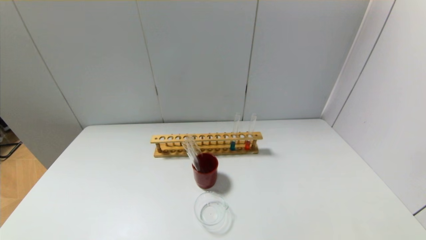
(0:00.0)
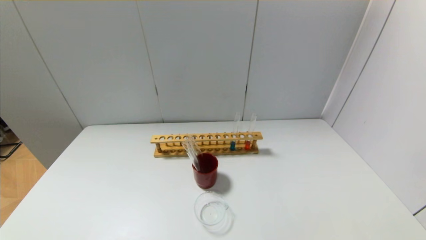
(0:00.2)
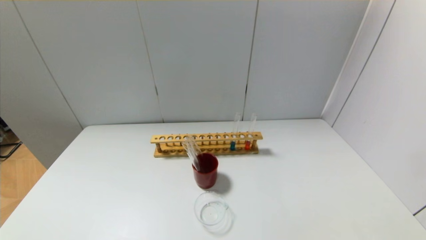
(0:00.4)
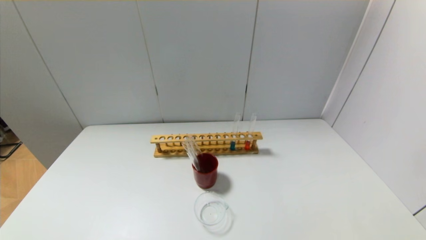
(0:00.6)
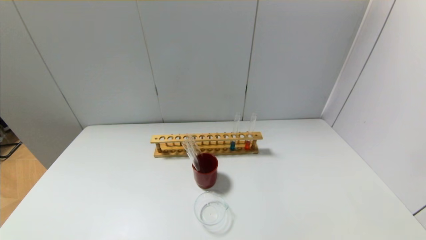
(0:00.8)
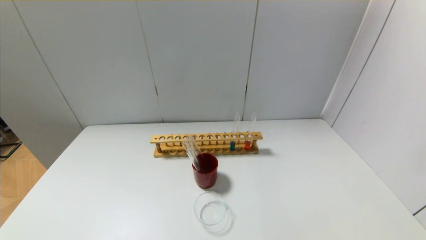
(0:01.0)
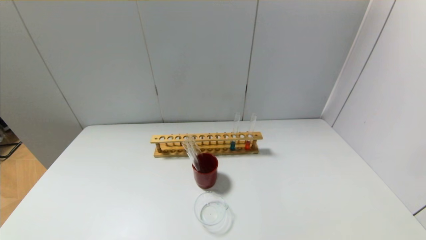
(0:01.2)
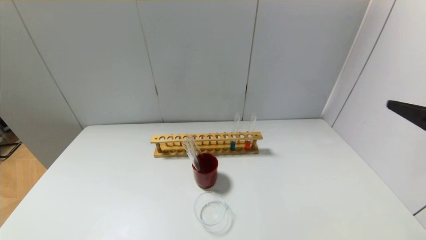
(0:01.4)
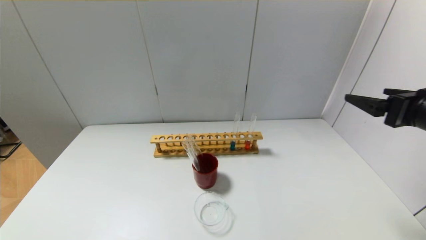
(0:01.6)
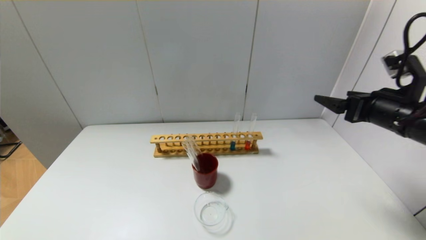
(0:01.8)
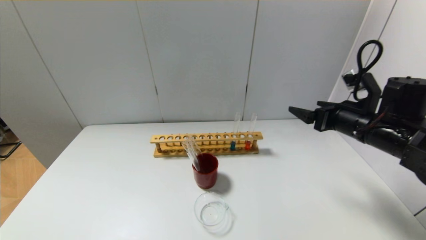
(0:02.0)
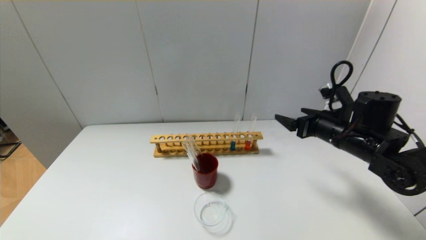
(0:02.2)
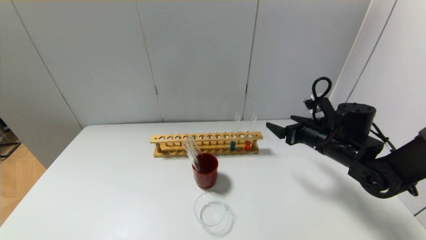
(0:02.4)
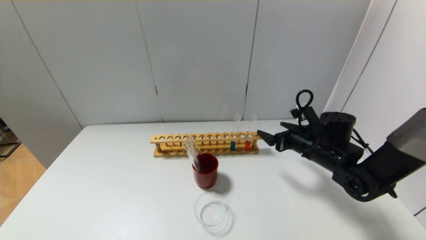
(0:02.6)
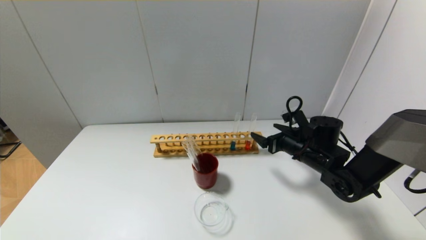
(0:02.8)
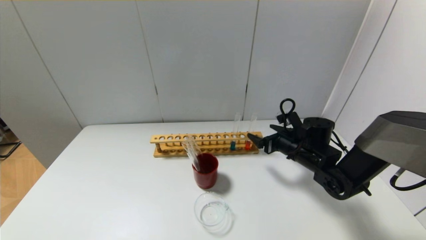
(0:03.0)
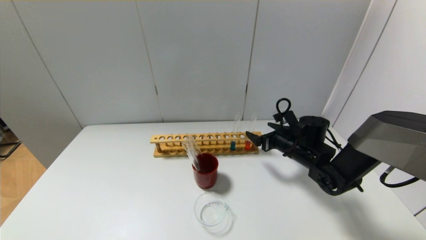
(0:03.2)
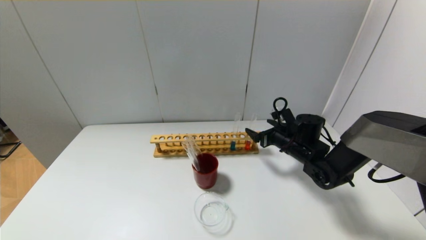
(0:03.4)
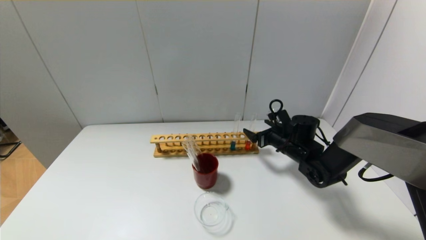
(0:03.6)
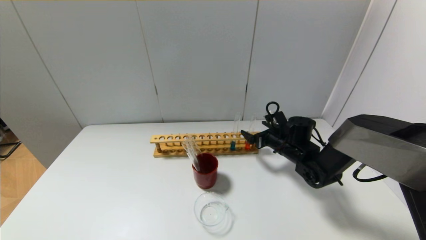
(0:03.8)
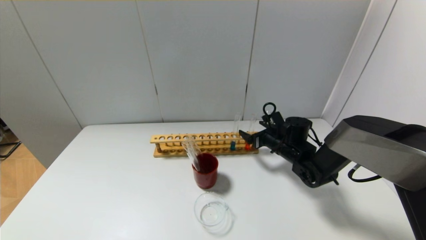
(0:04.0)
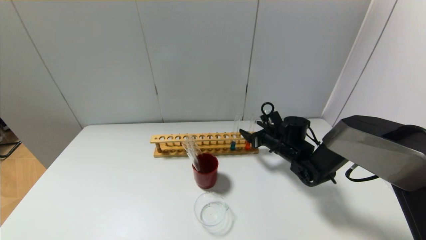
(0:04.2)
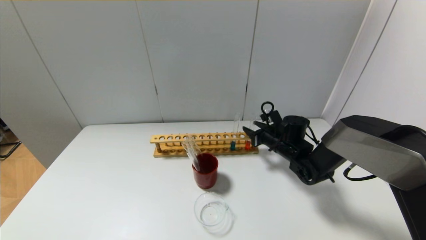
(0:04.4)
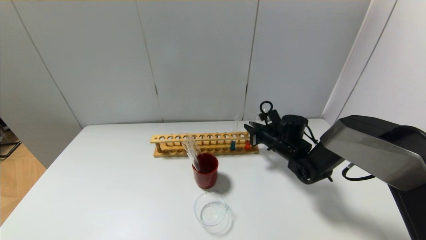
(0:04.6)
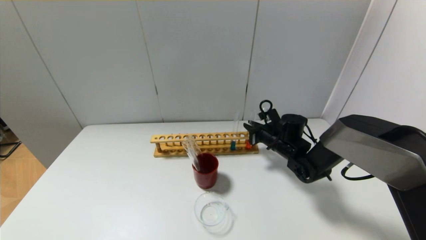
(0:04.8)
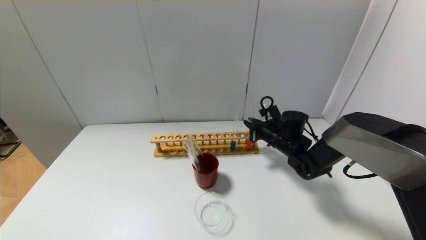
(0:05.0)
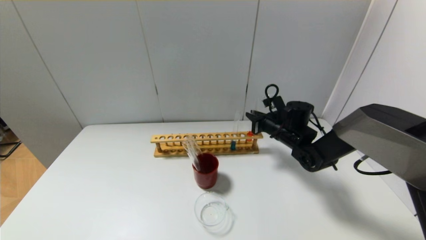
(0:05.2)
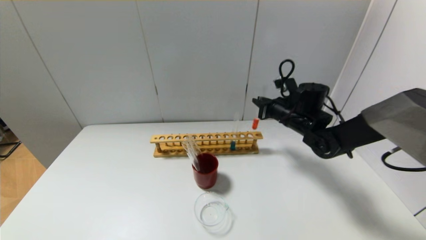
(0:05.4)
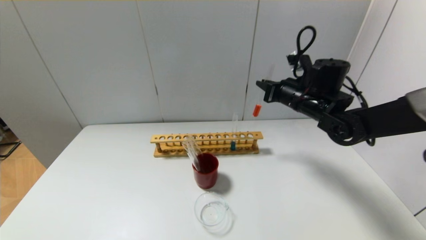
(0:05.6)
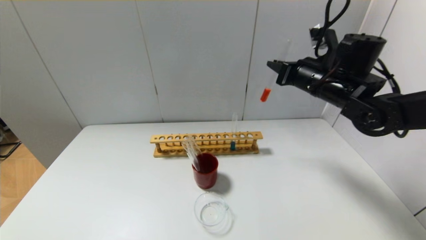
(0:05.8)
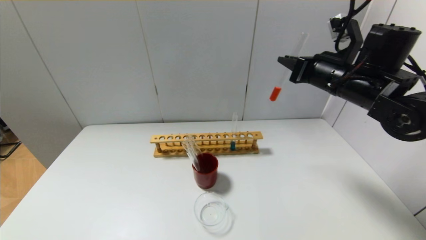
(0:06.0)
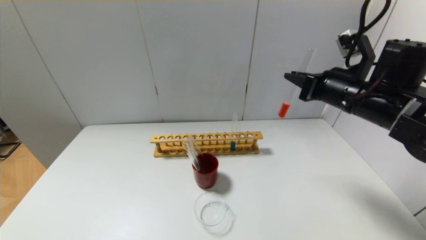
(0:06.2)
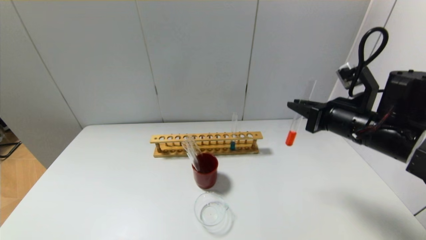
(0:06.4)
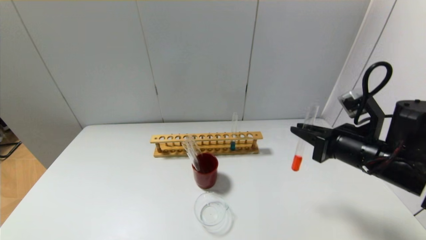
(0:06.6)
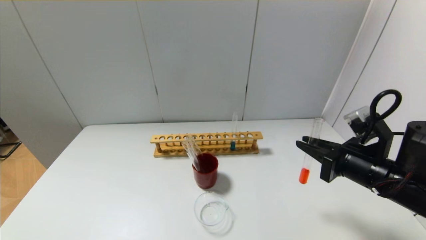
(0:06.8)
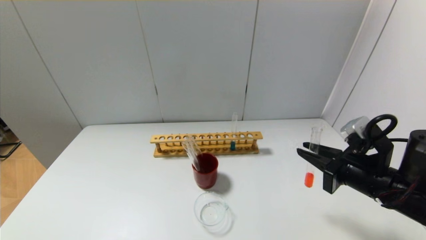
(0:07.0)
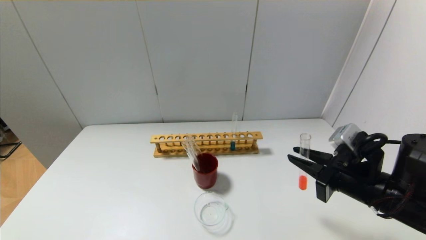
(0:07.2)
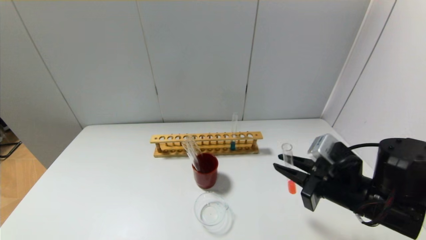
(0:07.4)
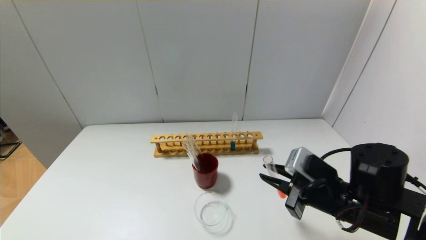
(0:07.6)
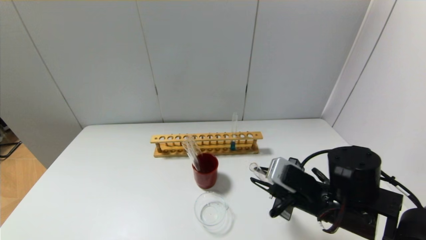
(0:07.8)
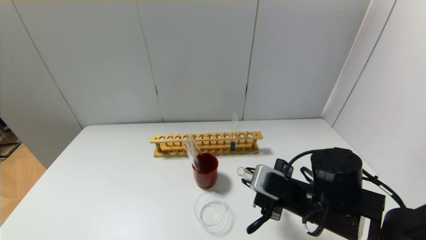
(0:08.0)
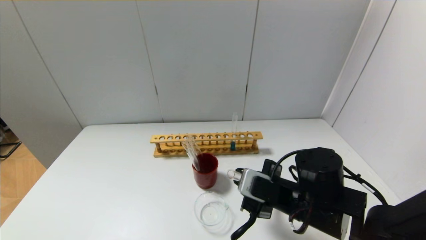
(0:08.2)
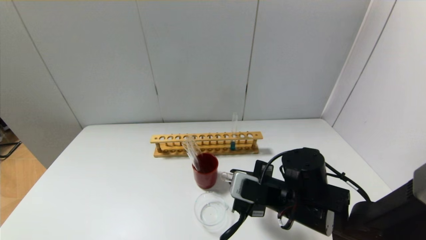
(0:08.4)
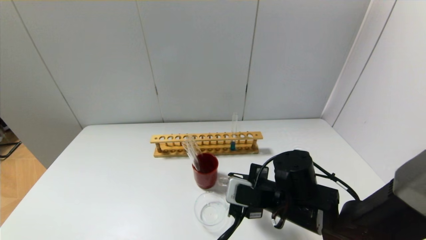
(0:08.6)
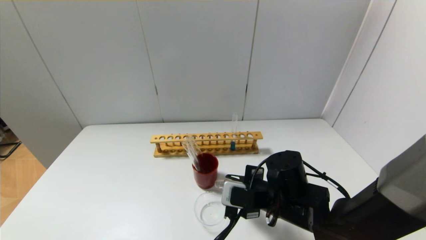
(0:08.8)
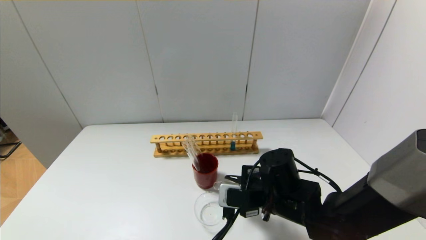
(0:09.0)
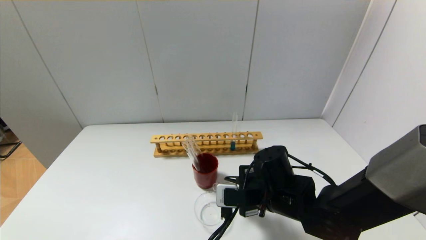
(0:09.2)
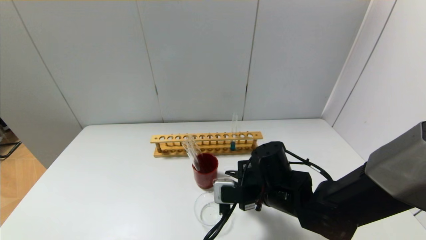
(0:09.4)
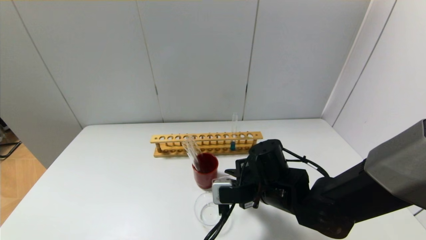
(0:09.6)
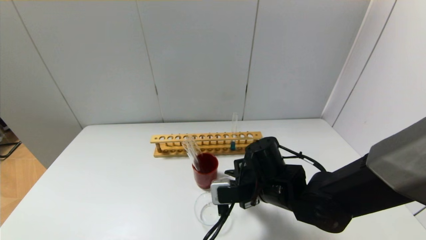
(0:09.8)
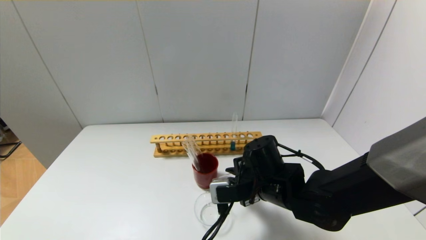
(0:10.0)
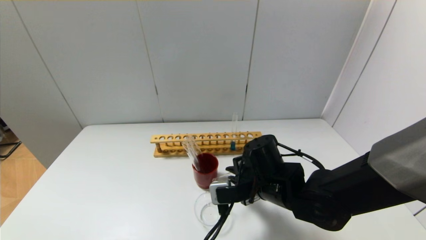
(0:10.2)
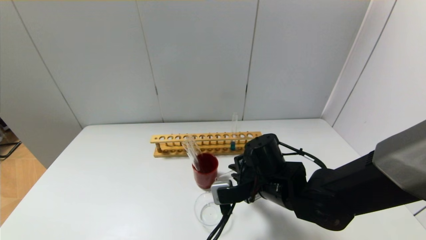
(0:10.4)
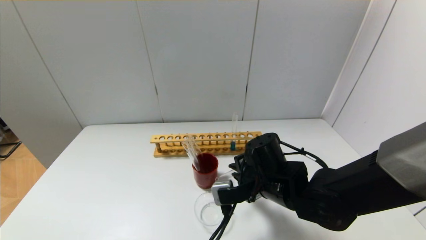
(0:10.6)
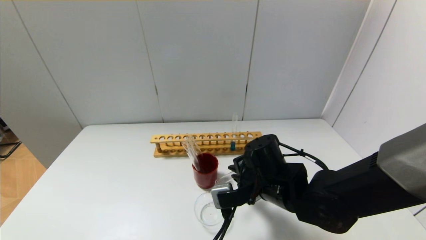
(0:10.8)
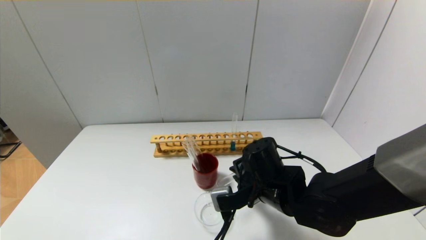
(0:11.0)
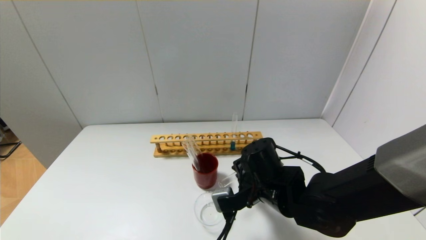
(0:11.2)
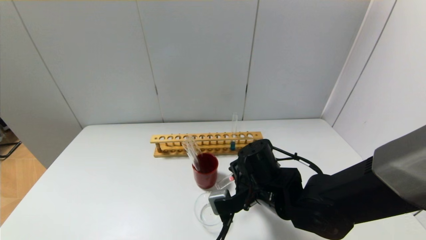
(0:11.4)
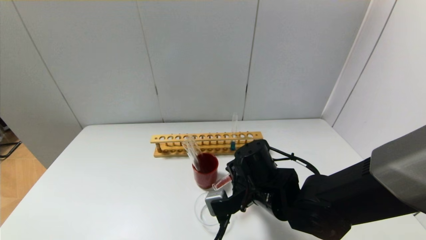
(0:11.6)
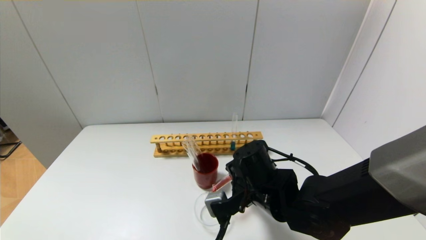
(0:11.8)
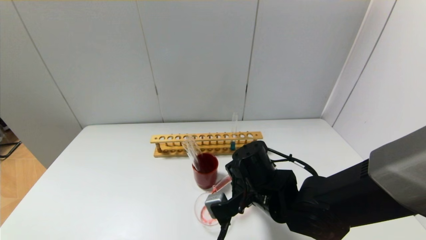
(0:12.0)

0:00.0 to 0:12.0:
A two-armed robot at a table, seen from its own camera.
Step, 0:00.0 to 0:04.6: Grasp the red reagent with the right gripper.
0:00.0 to 0:01.6: The right gripper shifts approximately 30 cm forward and upward.
0:01.6 to 0:03.0: The right gripper moves downward, forward and to the left, some 25 cm.
0:03.0 to 0:04.4: The right gripper travels forward by approximately 5 cm, and closes its fingers.
0:04.4 to 0:06.0: The right gripper goes roughly 25 cm upward and backward.
0:06.0 to 0:07.6: The right gripper heads downward and backward, covering some 20 cm.
0:07.6 to 0:09.0: The right gripper moves to the left and downward, about 10 cm.
0:10.4 to 0:12.0: The grippers make only small movements.

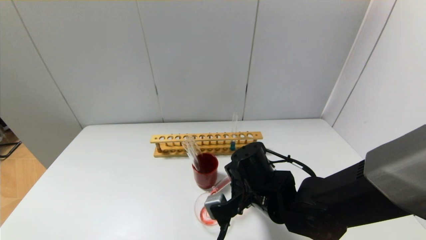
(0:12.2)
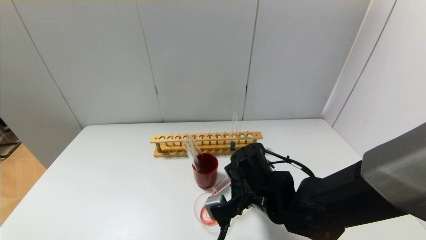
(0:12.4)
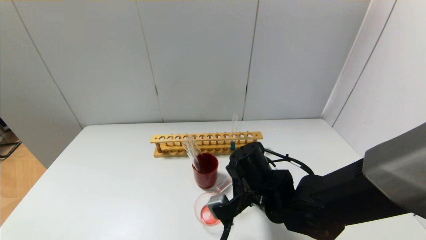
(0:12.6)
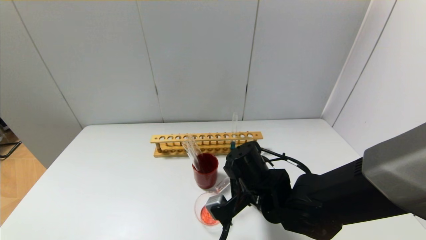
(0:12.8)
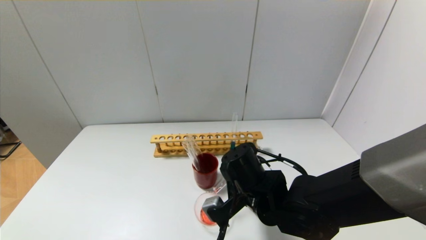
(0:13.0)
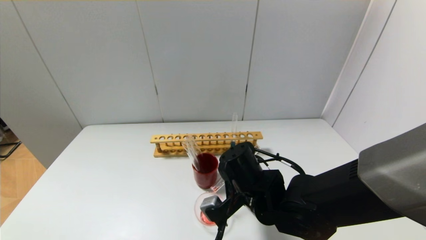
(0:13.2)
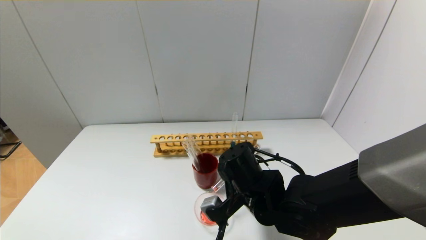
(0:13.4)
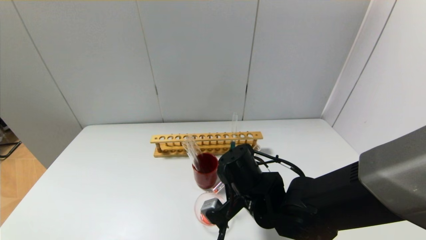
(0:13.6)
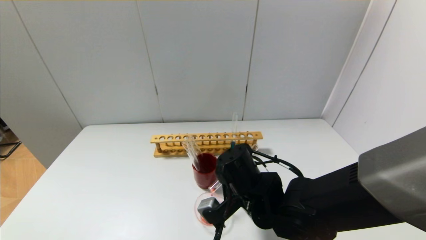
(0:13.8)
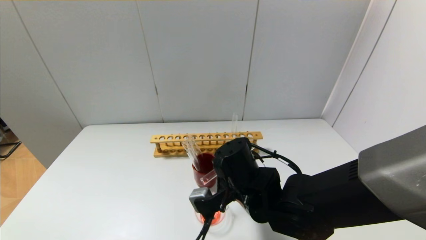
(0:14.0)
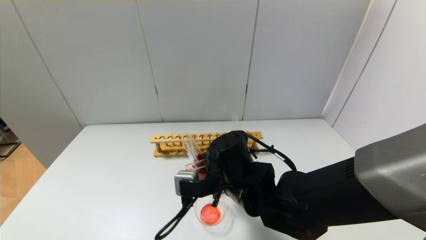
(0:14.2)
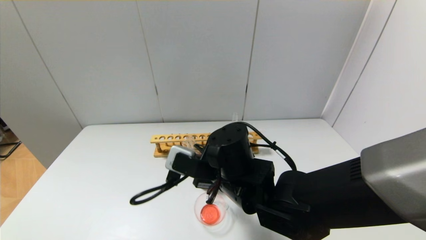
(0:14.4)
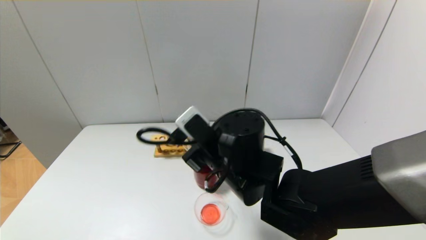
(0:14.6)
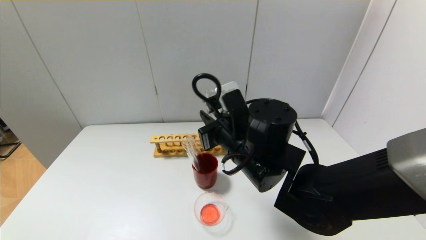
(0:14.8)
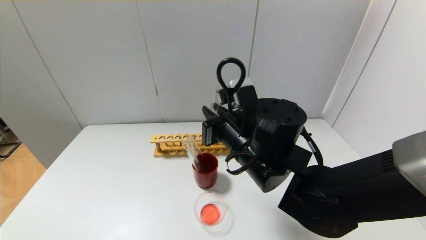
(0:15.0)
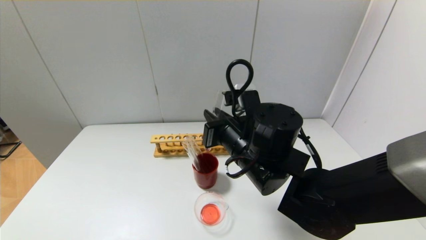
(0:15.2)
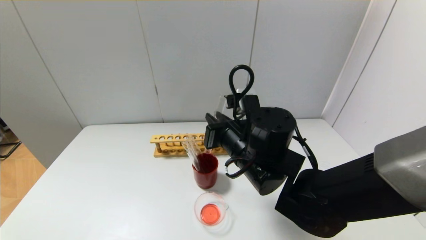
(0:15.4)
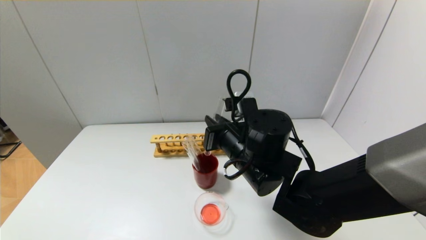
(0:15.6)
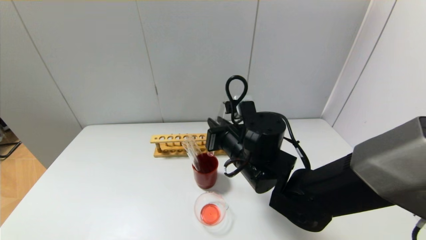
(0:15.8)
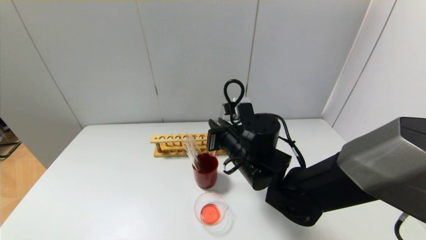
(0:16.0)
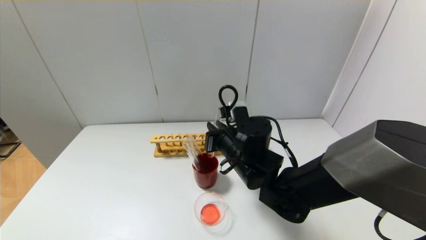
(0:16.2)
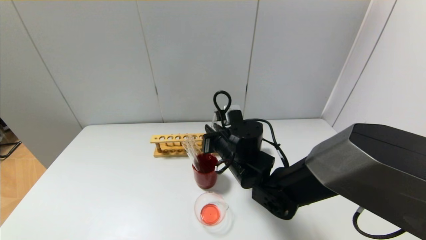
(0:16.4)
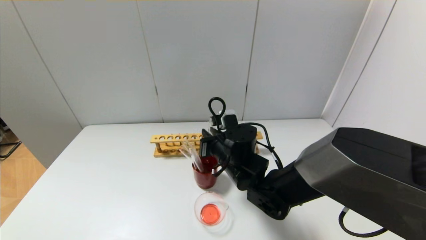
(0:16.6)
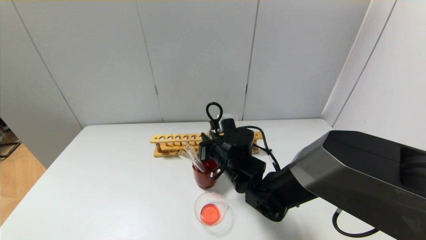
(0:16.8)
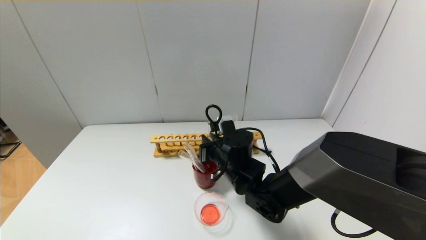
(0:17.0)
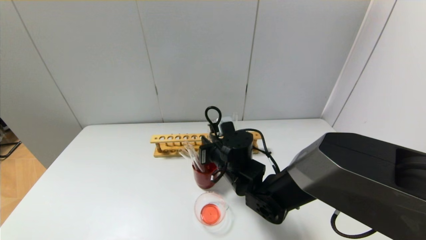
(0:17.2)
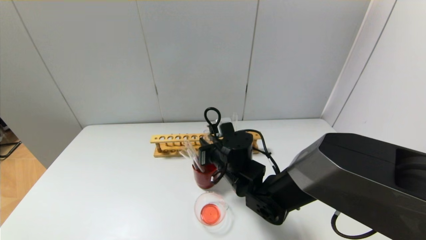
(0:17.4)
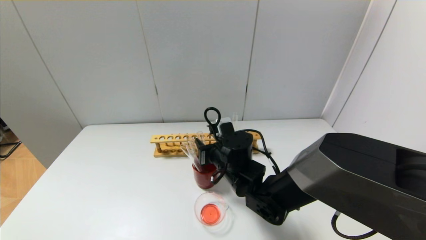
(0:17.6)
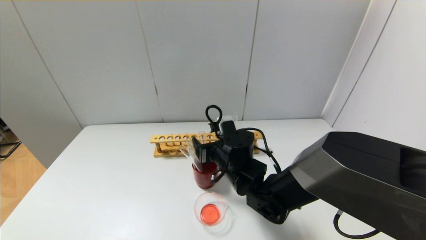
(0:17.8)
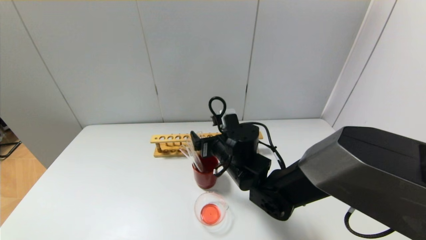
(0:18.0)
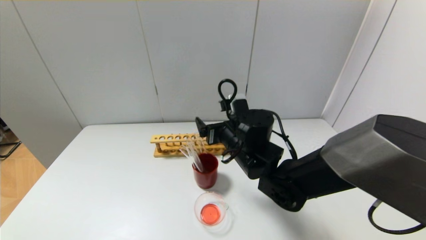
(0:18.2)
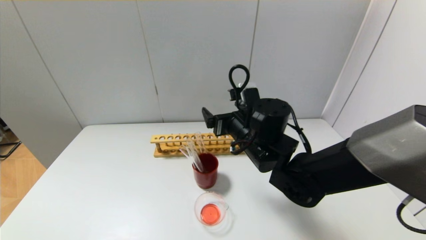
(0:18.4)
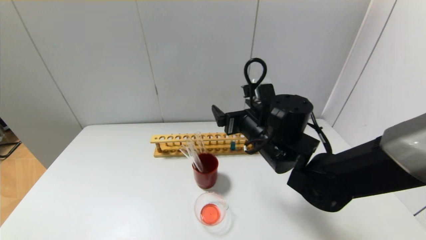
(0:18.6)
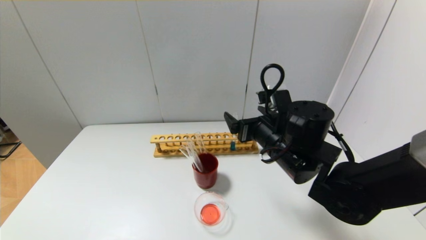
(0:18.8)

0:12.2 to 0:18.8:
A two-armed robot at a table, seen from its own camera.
Step, 0:14.0 to 0:17.6: Place the test tube into the brown cup with the right gripper.
0:12.2 to 0:13.8: The grippers move only a little.
0:13.8 to 0:15.4: The right gripper goes about 5 cm upward.
0:15.4 to 0:17.2: The right gripper travels downward and forward by some 10 cm.
0:17.2 to 0:18.8: The right gripper travels to the right and upward by approximately 10 cm, and opens up.
